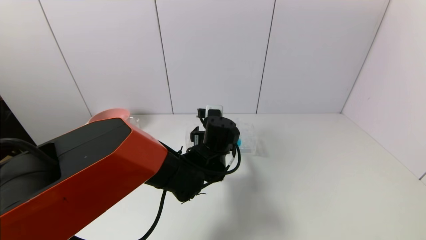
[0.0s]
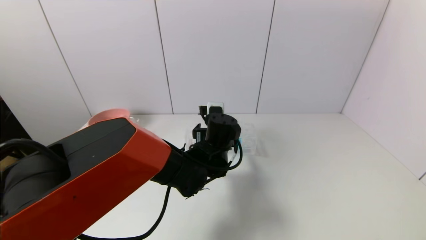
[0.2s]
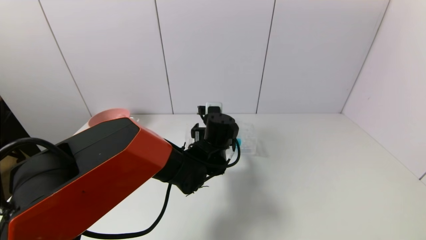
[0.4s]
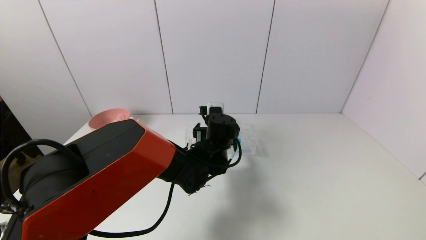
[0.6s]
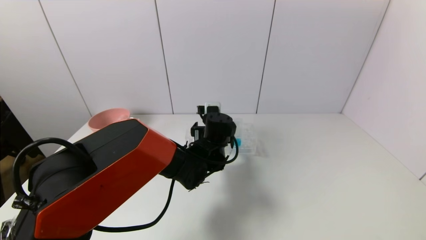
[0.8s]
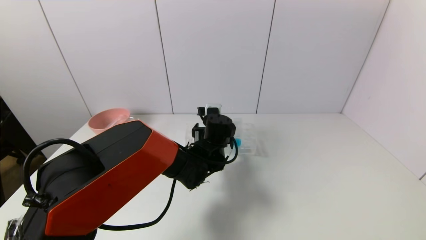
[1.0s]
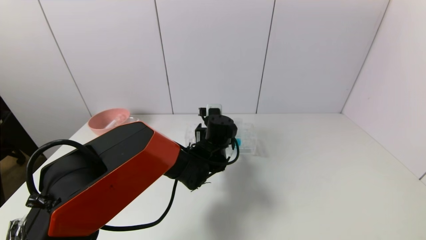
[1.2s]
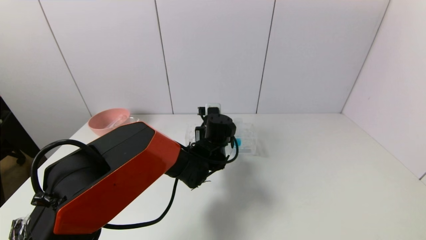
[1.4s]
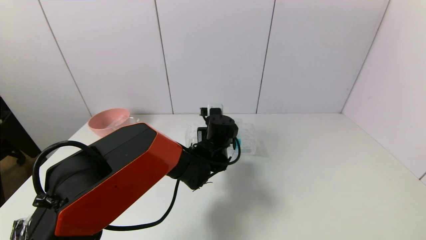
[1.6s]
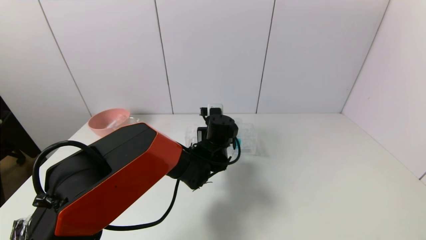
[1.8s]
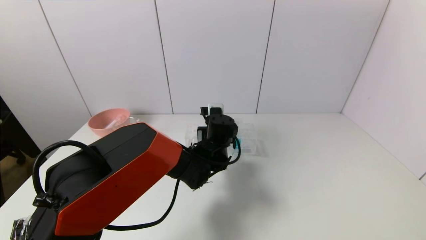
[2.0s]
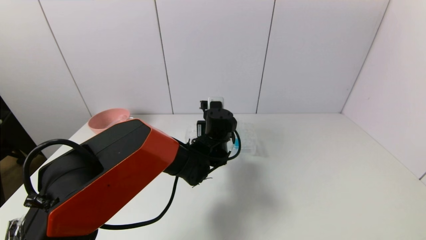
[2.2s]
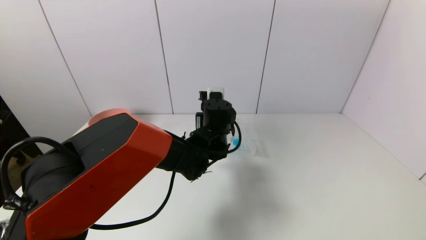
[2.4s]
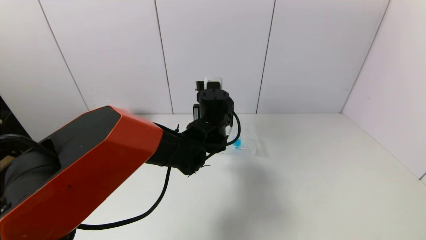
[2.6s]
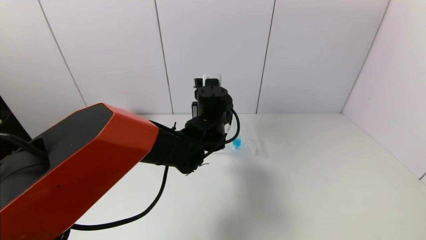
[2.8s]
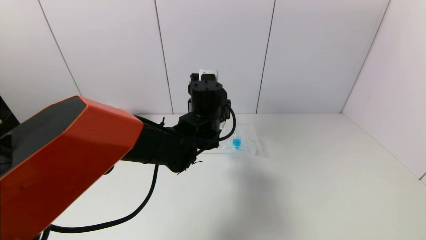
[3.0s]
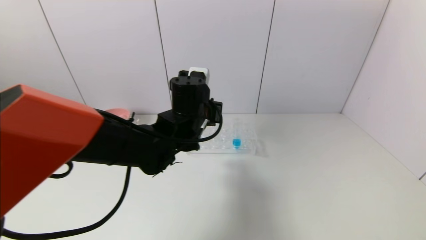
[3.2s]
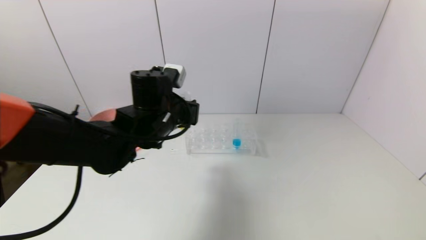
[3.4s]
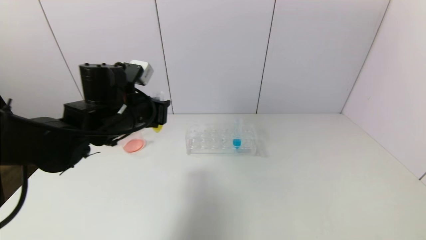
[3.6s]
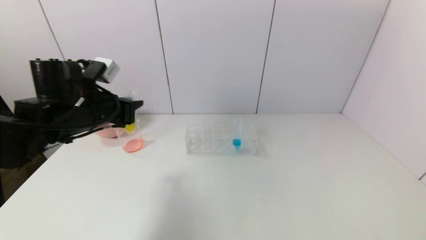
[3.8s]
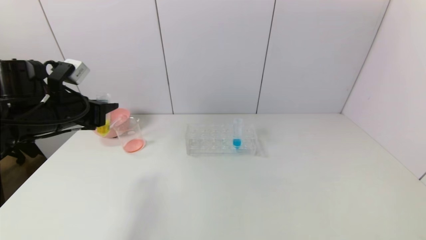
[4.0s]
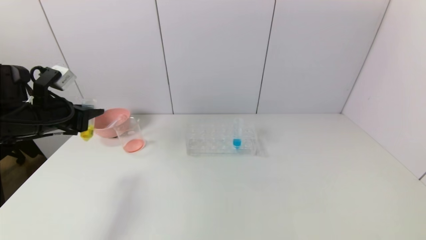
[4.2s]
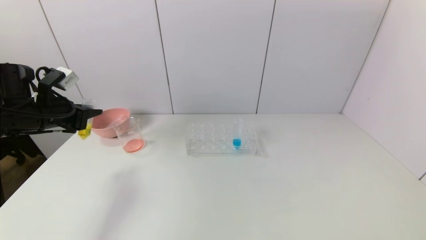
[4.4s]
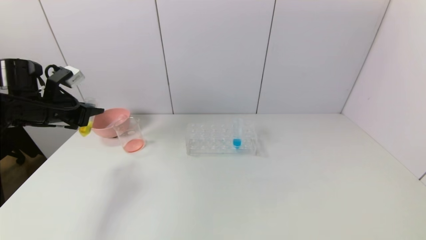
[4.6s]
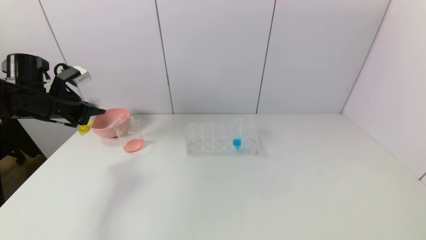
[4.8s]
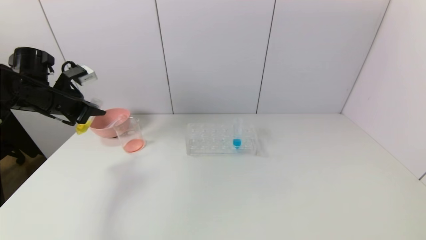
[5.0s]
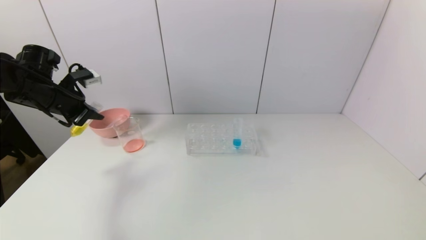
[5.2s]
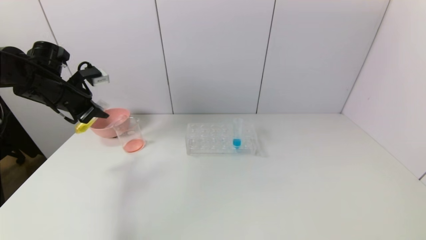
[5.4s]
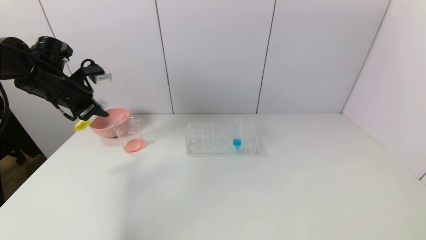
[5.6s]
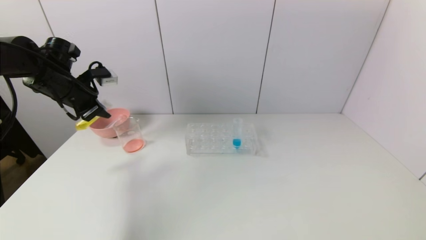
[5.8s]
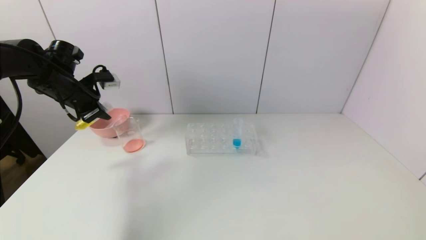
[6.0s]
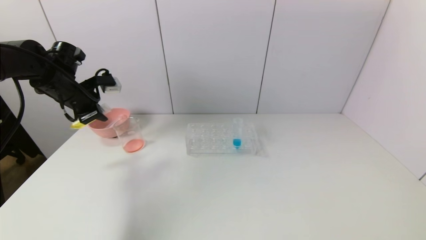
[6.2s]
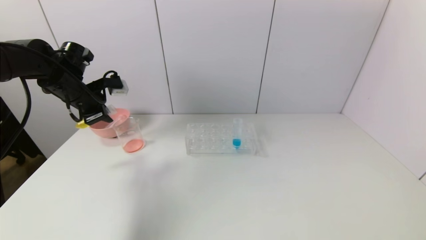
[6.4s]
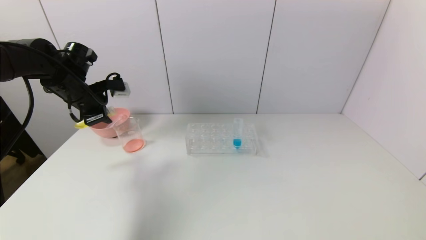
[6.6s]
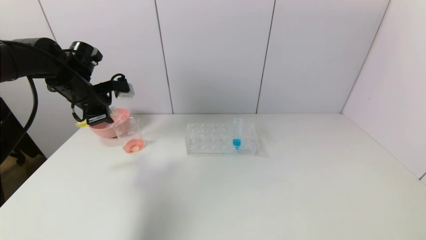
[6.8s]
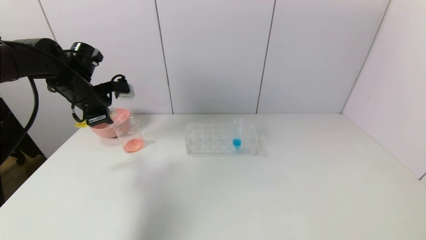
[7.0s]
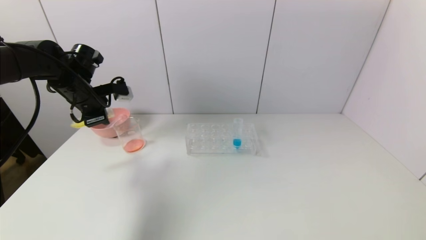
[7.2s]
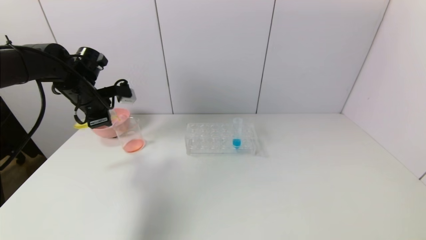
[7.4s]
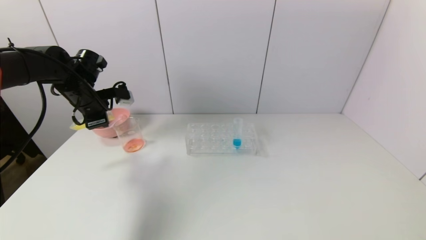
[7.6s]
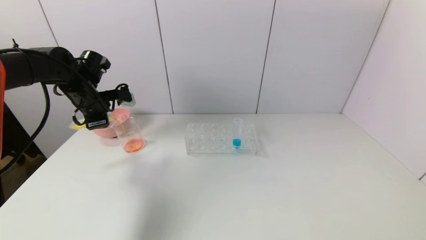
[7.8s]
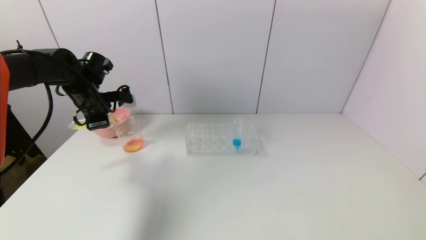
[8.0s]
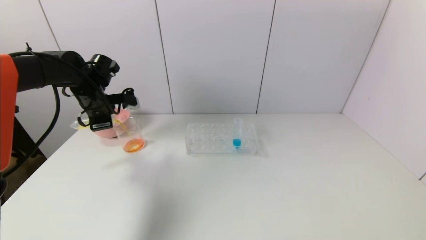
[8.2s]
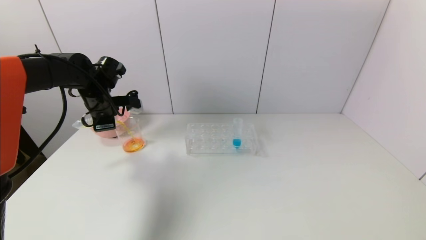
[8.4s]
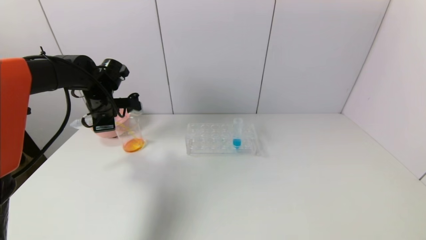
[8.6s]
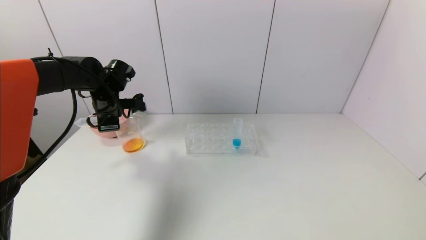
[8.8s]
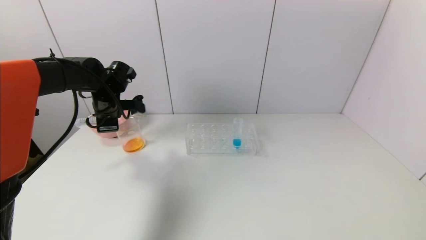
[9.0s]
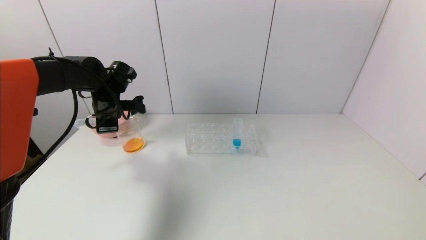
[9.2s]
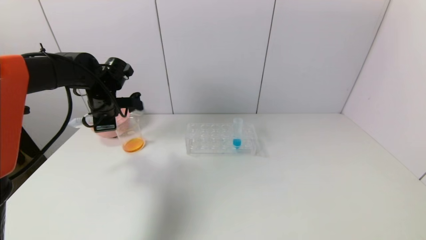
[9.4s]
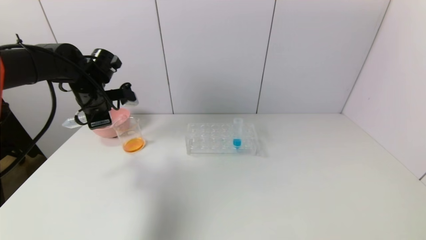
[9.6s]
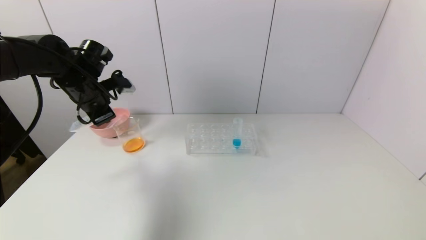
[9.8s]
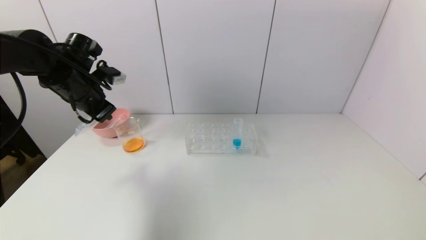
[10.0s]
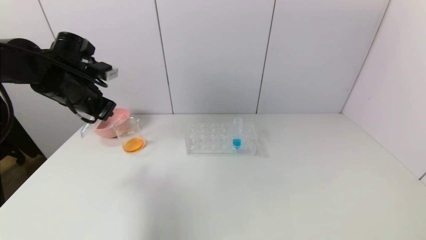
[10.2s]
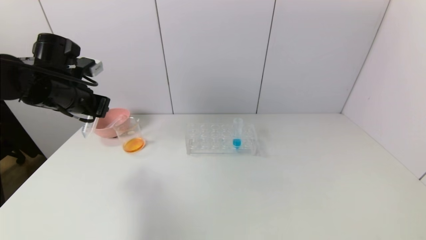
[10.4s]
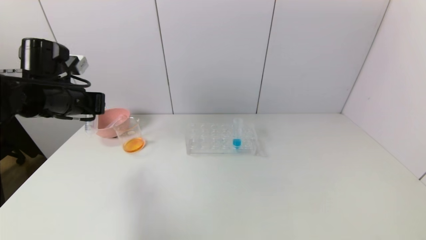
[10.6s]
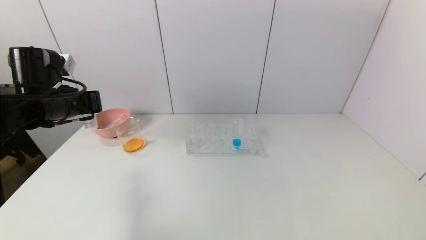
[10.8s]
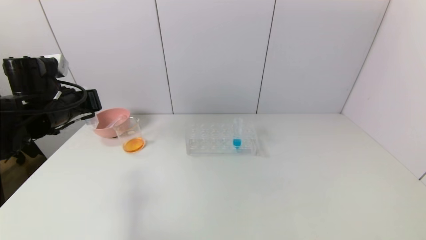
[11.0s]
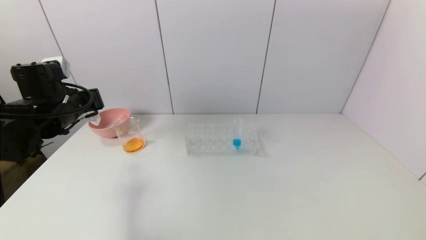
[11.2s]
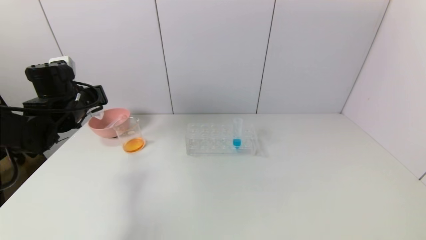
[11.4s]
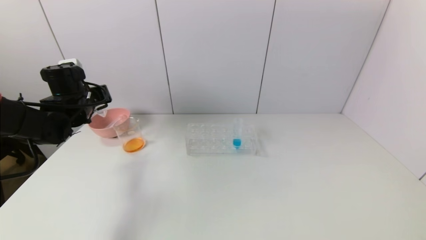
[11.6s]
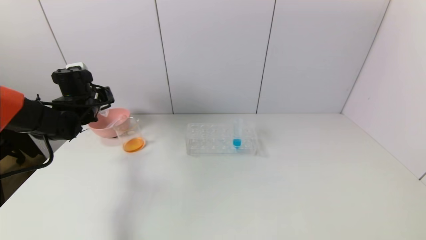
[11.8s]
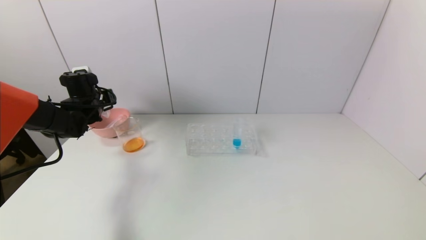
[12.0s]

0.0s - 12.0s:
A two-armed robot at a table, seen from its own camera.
Task of the whole recording: pick up the test tube with yellow pigment and the test tube with red pigment by grippers and pour them into the beaker.
Step, 1.8s - 9.0s: Pour the yellow reagent into the graduated cylinder with the left gripper.
0.0s - 1.6s: The left gripper changes place by approximately 5 cm, and closes its fingers.
1.6s - 3.0s: The left gripper travels upward by some 10 cm.
3.0s - 4.4s: The left gripper goes some 35 cm to the left.
4.4s - 6.0s: The left gripper moves forward, about 5 cm.
7.6s - 9.0s: The left gripper moves about 5 cm.
9.0s - 10.4s: The left gripper travels backward and upward by about 10 cm.
10.4s - 12.0s: The left gripper goes about 15 cm forward and downward.

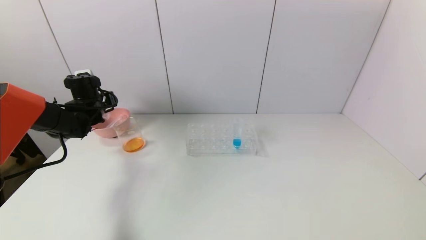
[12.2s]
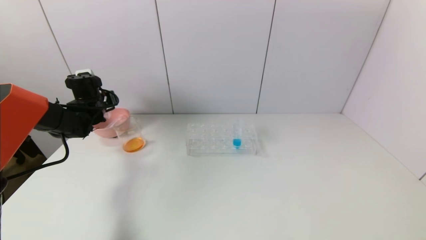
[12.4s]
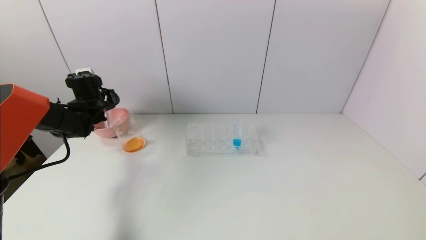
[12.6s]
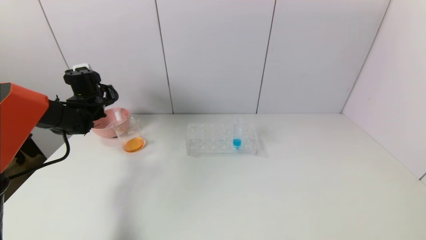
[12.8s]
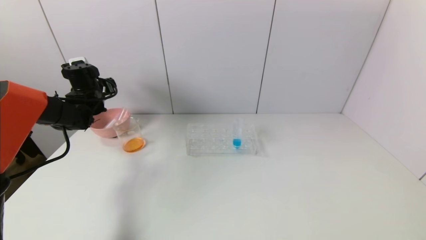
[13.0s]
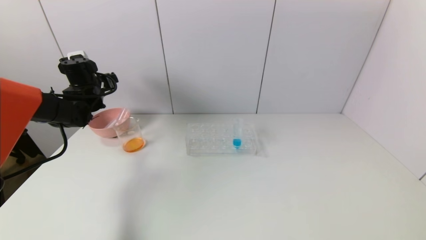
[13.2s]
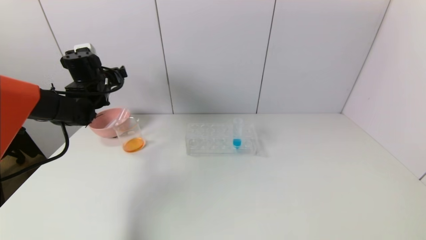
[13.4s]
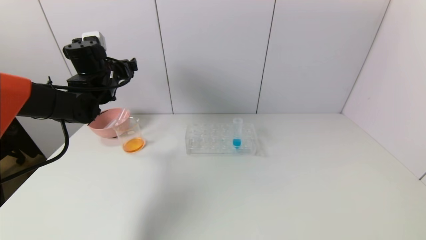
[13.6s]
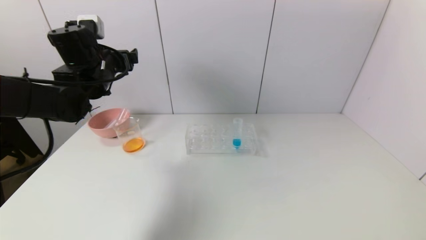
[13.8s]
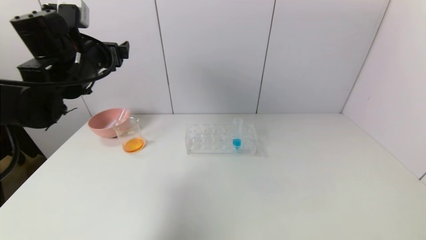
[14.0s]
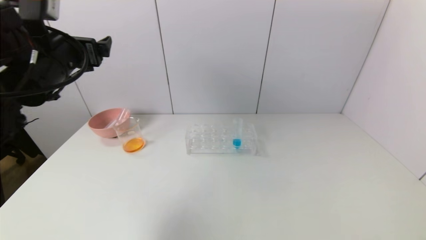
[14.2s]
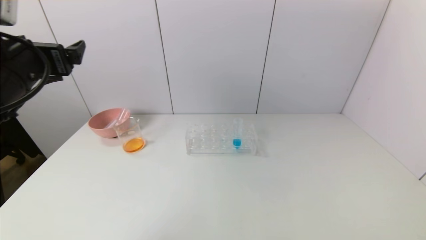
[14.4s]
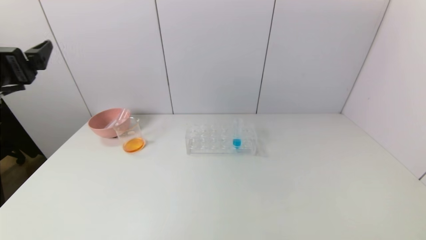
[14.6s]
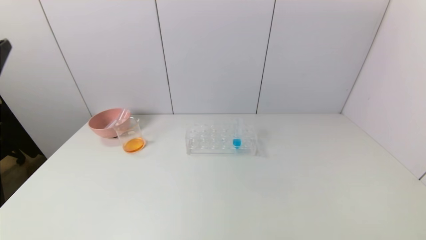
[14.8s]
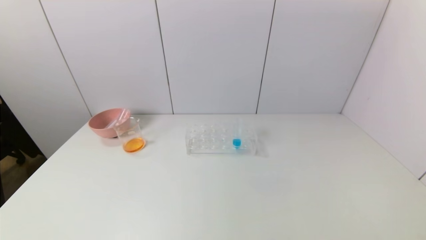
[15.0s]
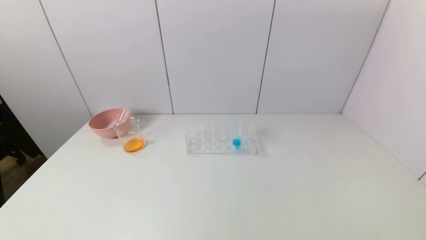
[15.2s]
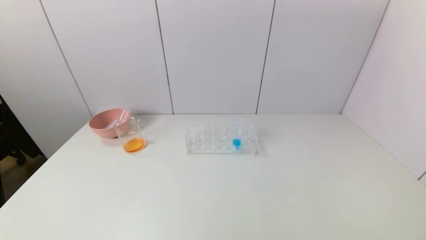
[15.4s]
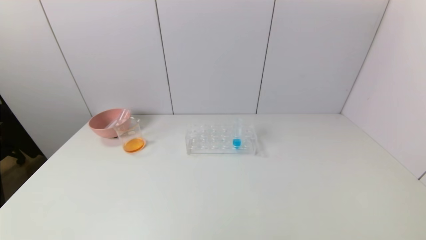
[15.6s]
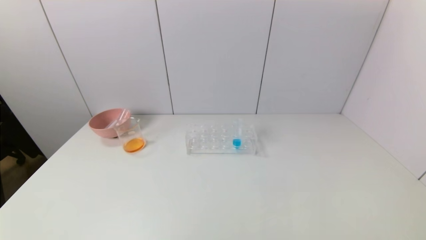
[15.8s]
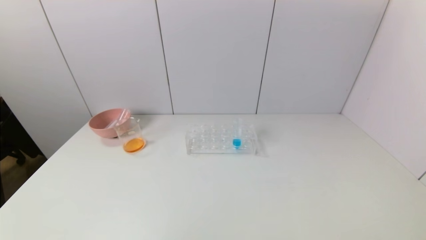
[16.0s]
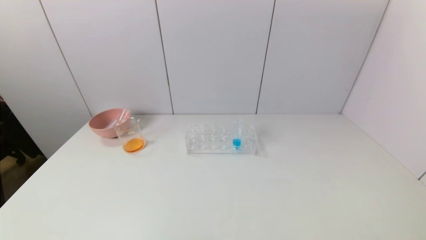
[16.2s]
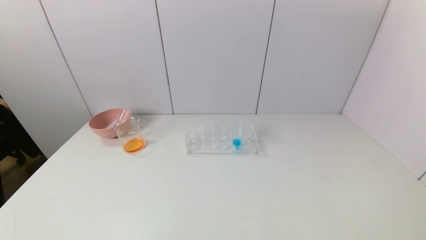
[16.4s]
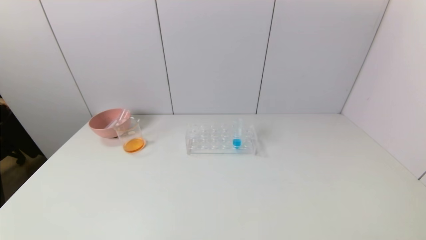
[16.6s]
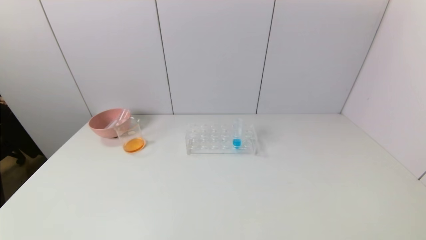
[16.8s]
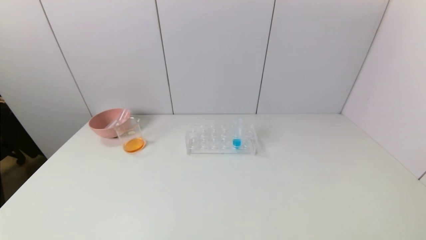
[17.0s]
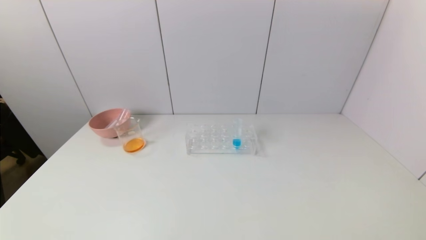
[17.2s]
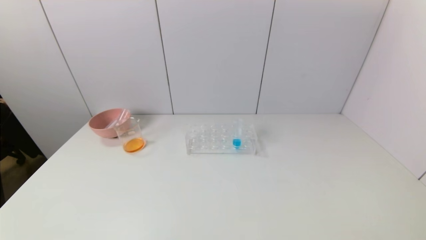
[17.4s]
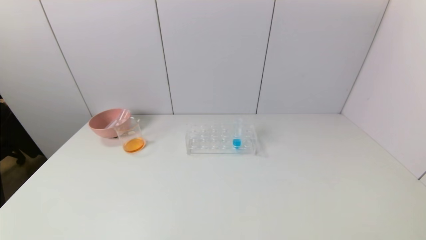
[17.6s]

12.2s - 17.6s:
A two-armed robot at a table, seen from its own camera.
Task of the whole recording: pick up the test tube with yellow pigment and the test tube with red pigment by grippers and pour them into the beaker.
12.2s - 13.6s: The left gripper is displaced upward and to the right by roughly 10 cm, and opens up.
13.6s - 15.0s: The left gripper heads backward, covering some 35 cm.
